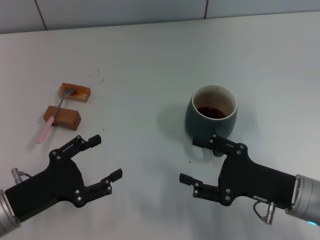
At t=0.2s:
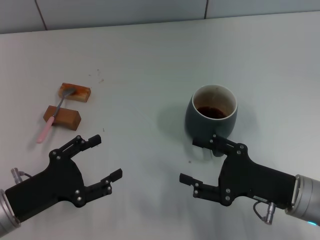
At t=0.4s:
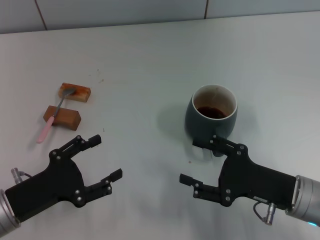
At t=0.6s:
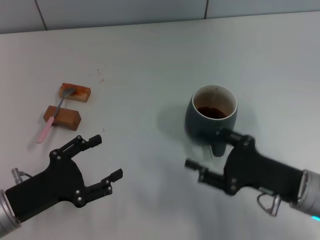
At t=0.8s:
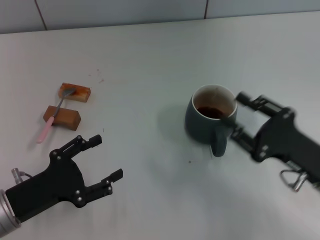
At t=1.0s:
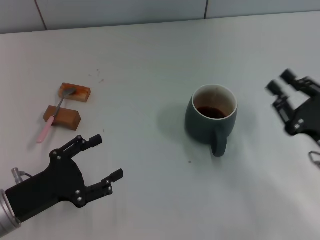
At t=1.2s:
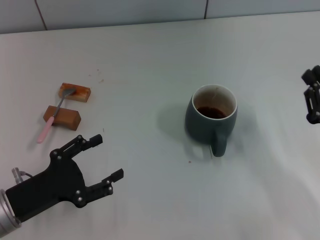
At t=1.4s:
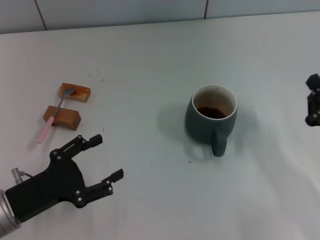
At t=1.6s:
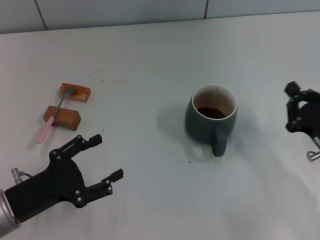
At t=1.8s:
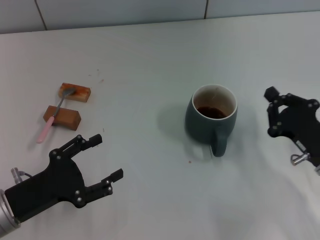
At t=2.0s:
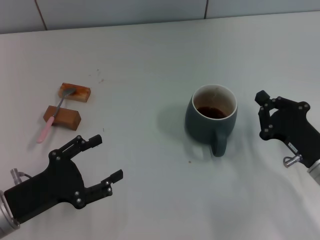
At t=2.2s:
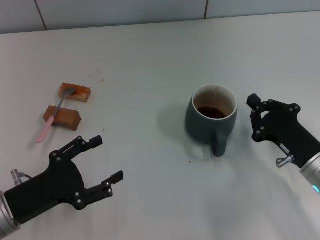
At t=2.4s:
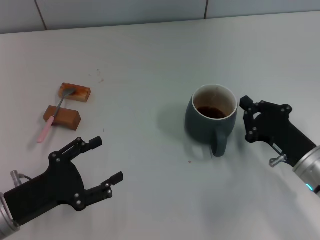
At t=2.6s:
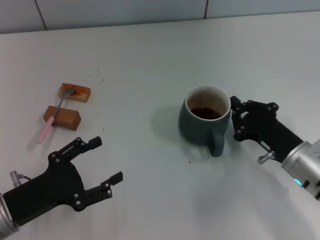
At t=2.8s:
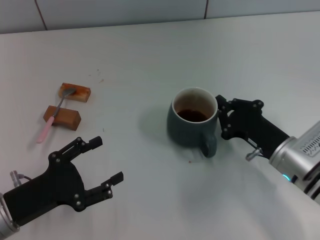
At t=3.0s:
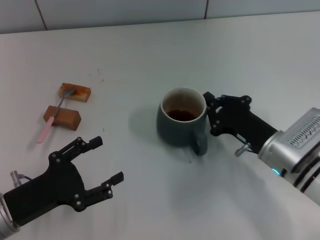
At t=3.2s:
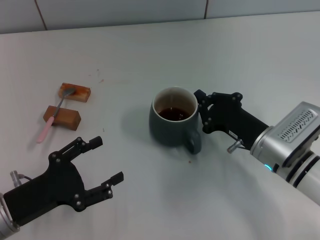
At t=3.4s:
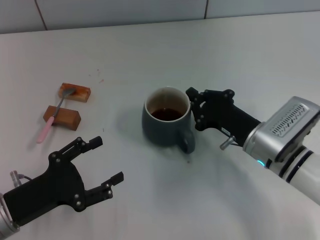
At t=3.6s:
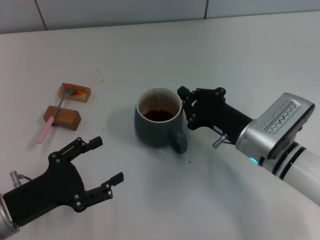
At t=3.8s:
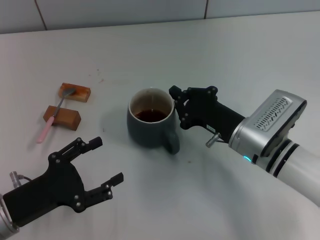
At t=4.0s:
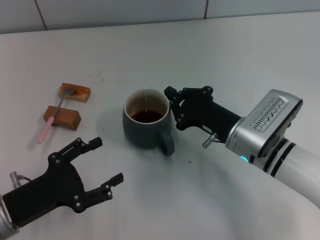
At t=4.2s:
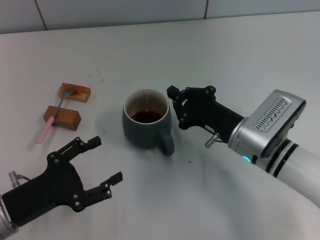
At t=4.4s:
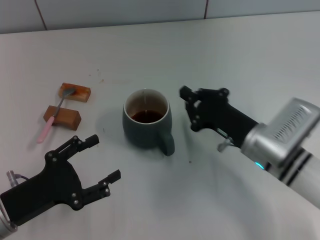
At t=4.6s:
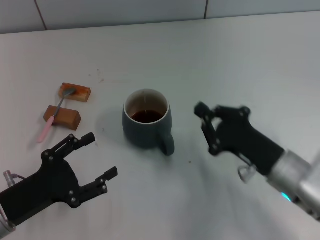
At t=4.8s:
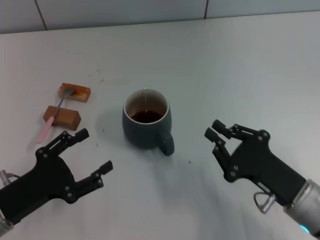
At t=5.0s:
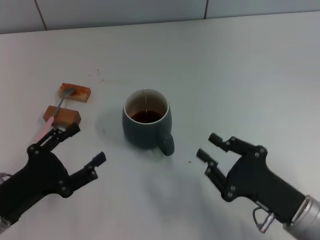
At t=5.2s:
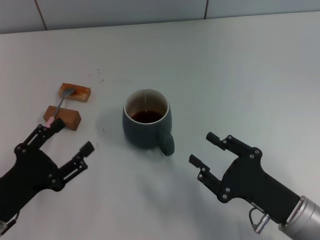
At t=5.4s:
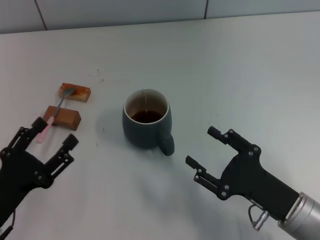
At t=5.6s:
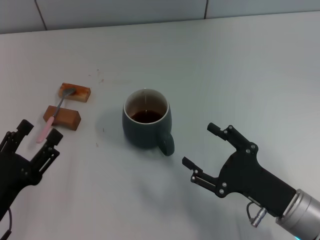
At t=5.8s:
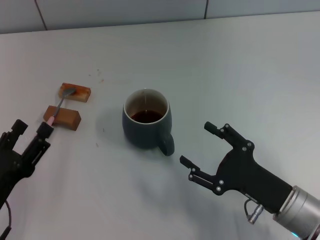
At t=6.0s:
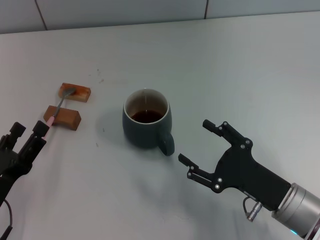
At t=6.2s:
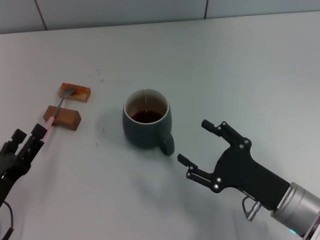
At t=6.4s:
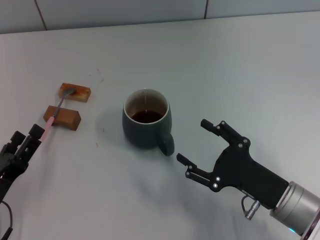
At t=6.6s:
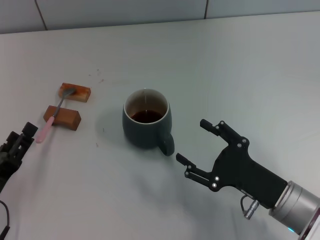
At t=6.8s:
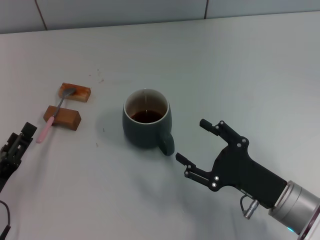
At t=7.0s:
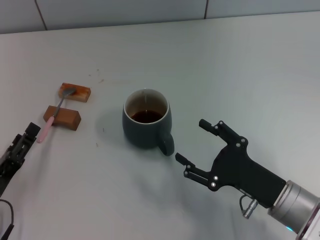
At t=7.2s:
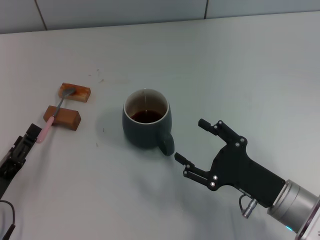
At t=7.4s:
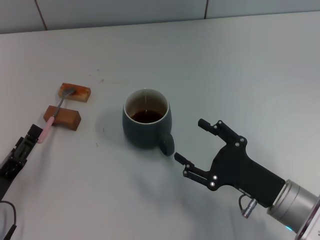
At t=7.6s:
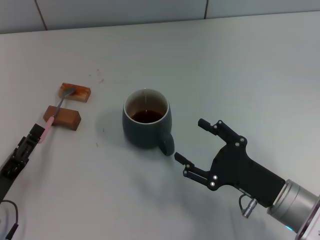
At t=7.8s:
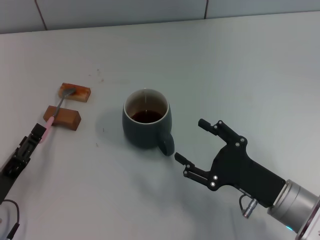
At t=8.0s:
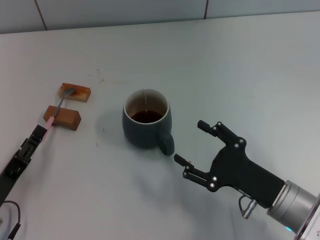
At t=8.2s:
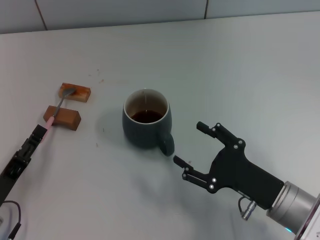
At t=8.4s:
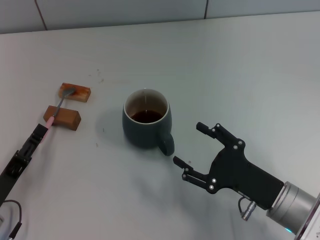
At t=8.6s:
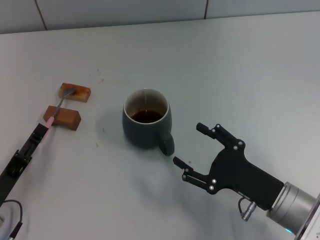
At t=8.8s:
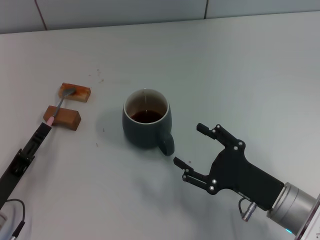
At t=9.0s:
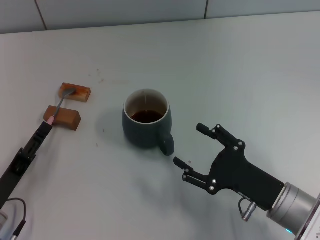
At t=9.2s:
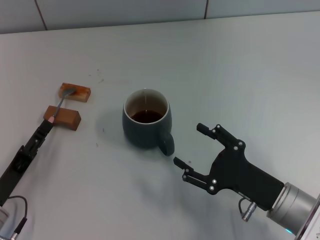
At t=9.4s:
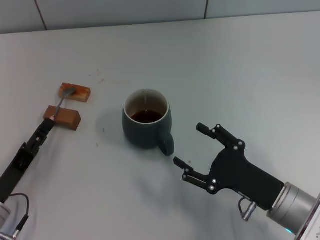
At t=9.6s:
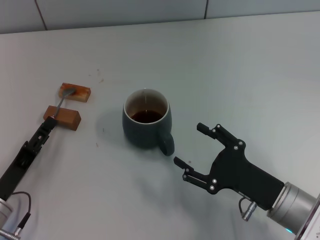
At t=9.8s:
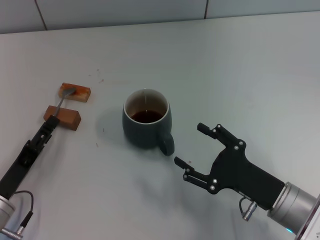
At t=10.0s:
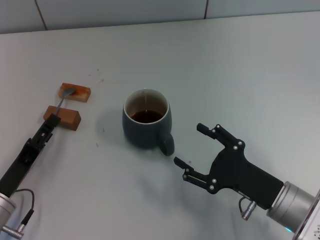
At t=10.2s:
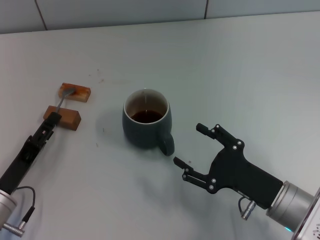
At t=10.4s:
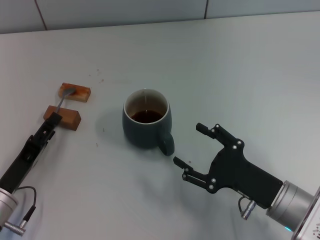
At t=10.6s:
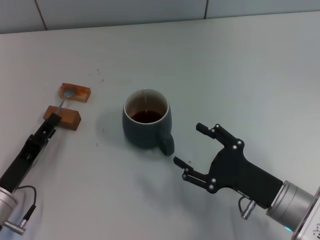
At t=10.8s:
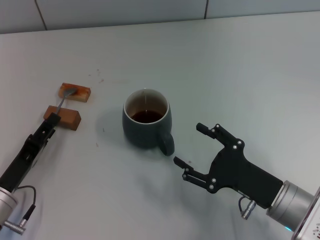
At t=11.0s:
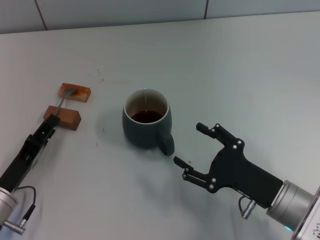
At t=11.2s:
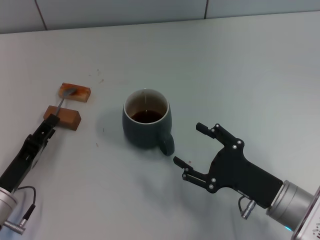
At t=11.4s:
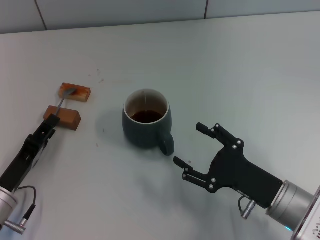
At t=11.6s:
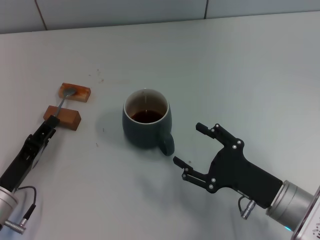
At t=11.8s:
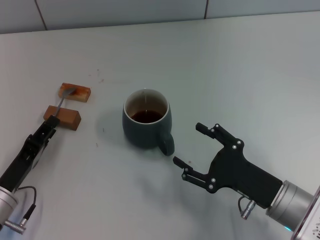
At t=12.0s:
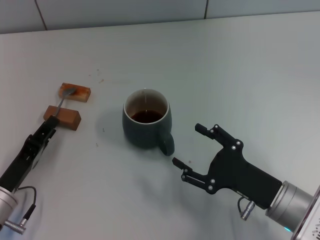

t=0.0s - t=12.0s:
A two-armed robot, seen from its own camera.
Task of the whole recording: Move the grey cup to the center, lift the pink spoon, stir it three times in the cup, and put the spoon into the cup.
Step, t=0.0s - t=4.2s: Move the cup with coffee to the center of view with the right gripper.
t=0.0s - t=1.6s: The right gripper goes roughly 5 cm to the right, and closes its fingers.
t=1.6s - t=3.0s: The right gripper heads to the left, covering roughly 10 cm.
t=3.0s - t=4.4s: The grippers stay close to where they were, moving slightly.
t=4.4s - t=6.0s: The right gripper heads backward, covering roughly 10 cm, and opens its fingers.
t=7.6s - t=10.4s: The grippers stay close to where they were, moving slightly.
t=10.4s - t=12.0s: The left gripper closes up.

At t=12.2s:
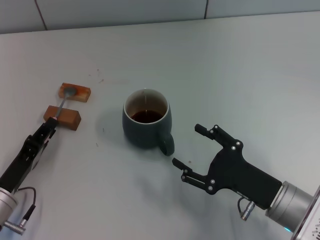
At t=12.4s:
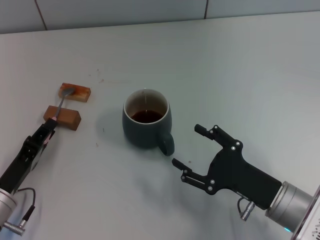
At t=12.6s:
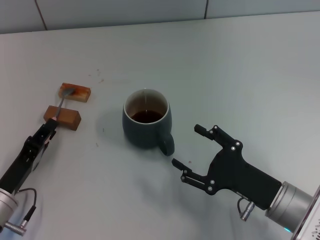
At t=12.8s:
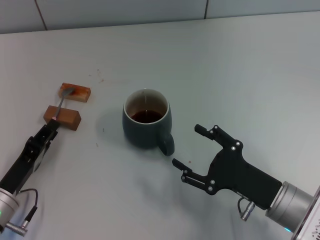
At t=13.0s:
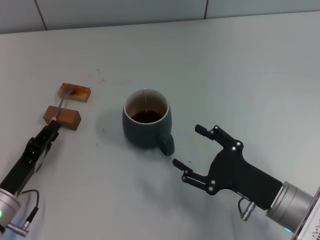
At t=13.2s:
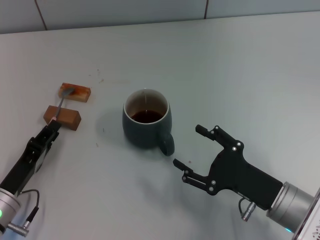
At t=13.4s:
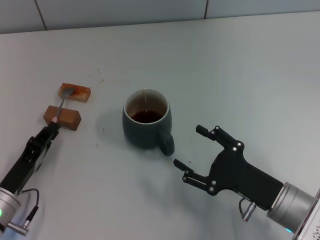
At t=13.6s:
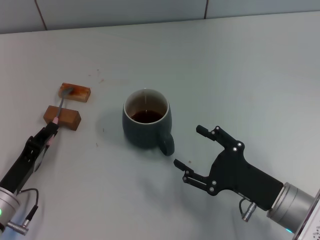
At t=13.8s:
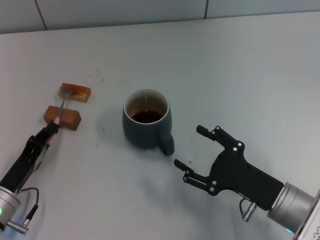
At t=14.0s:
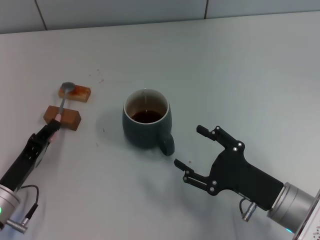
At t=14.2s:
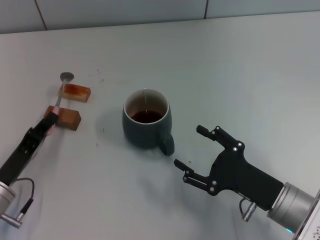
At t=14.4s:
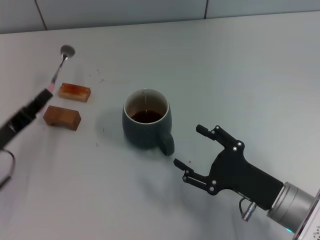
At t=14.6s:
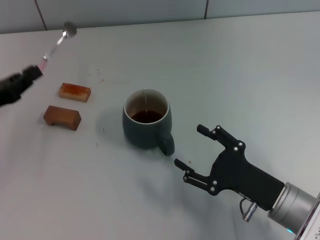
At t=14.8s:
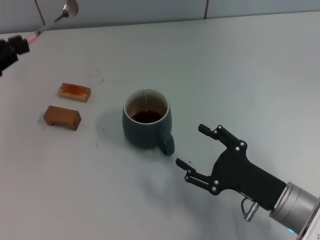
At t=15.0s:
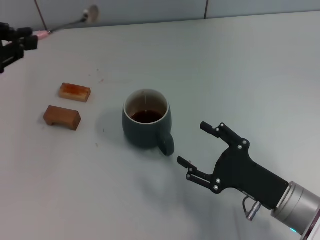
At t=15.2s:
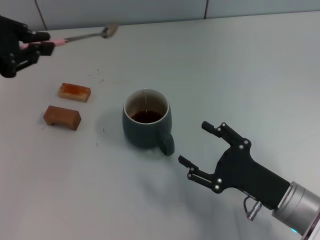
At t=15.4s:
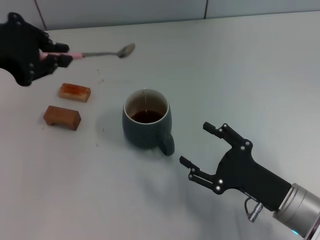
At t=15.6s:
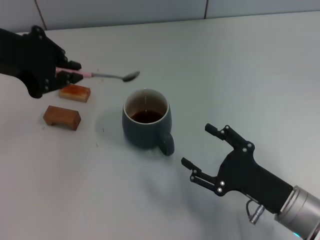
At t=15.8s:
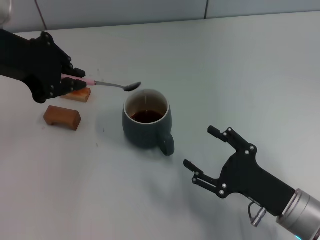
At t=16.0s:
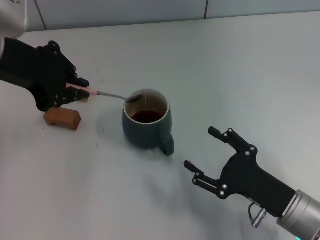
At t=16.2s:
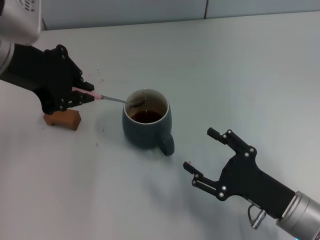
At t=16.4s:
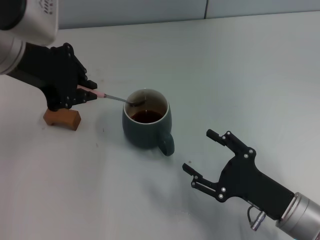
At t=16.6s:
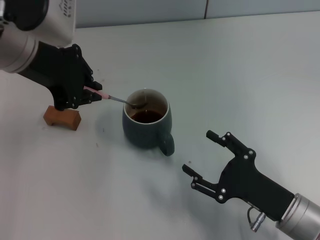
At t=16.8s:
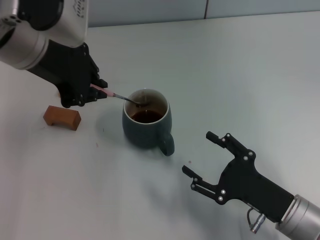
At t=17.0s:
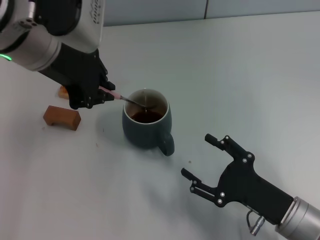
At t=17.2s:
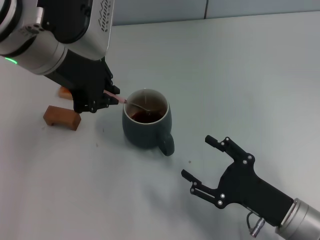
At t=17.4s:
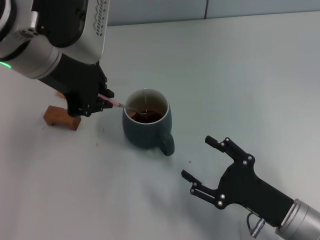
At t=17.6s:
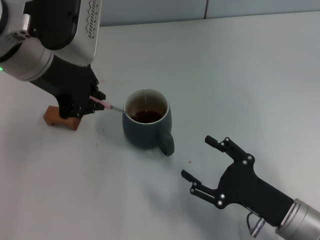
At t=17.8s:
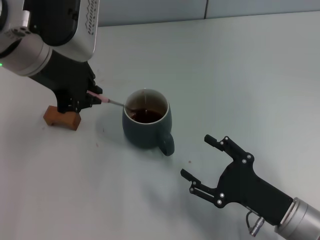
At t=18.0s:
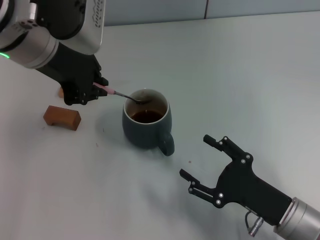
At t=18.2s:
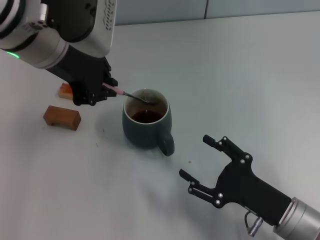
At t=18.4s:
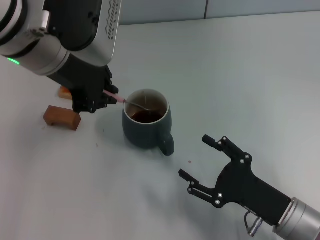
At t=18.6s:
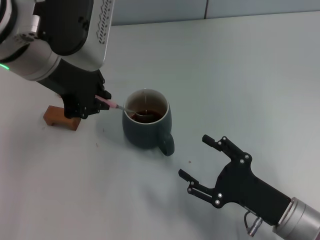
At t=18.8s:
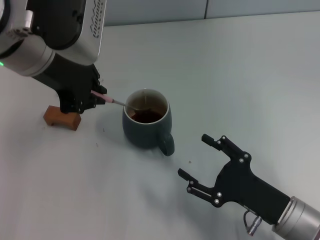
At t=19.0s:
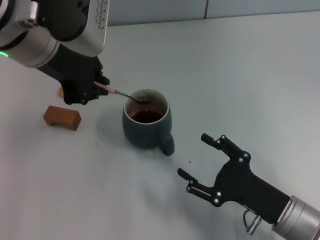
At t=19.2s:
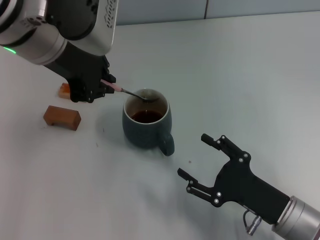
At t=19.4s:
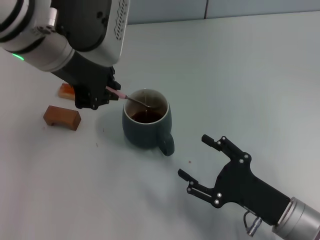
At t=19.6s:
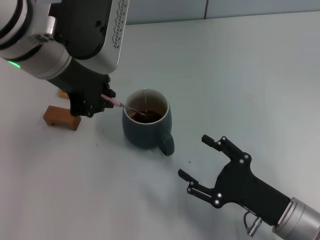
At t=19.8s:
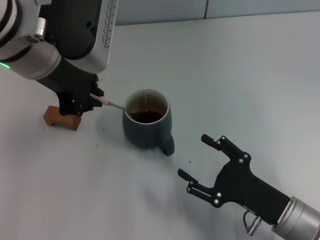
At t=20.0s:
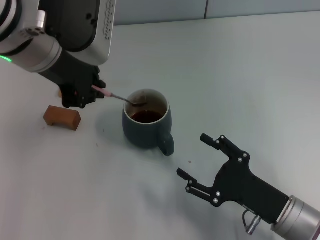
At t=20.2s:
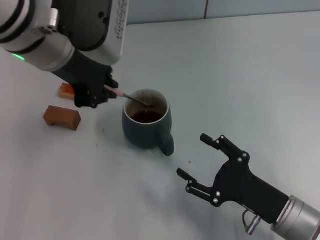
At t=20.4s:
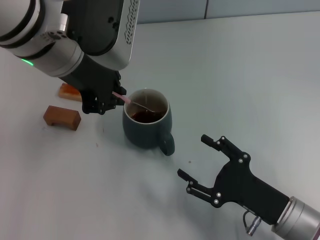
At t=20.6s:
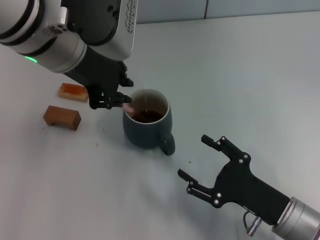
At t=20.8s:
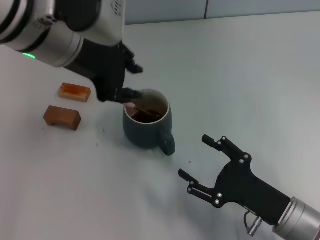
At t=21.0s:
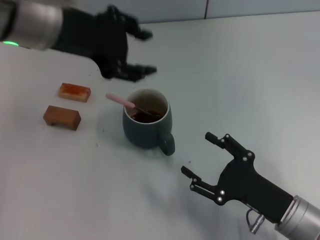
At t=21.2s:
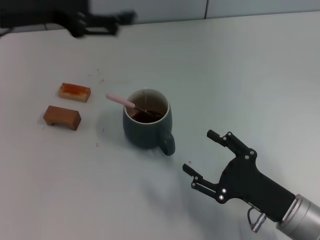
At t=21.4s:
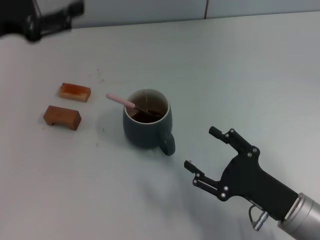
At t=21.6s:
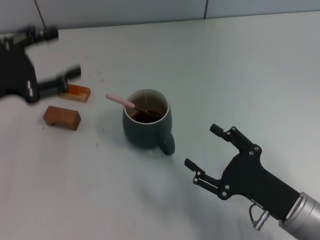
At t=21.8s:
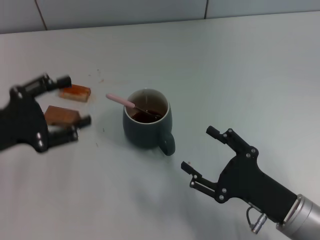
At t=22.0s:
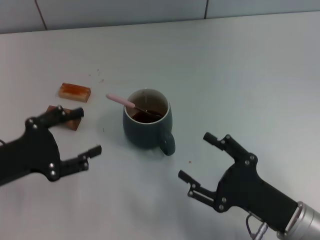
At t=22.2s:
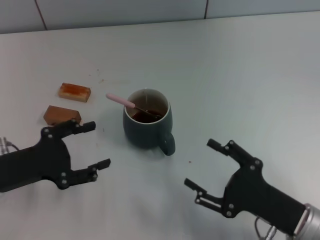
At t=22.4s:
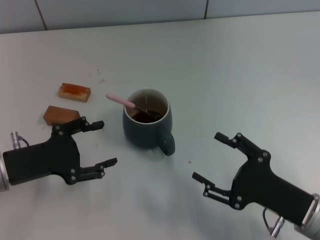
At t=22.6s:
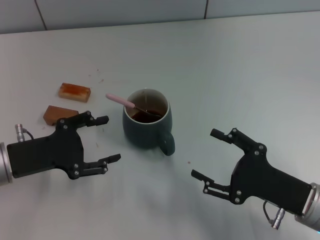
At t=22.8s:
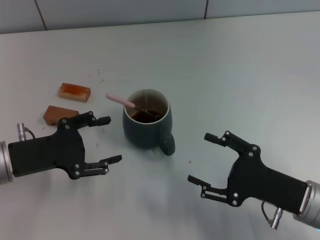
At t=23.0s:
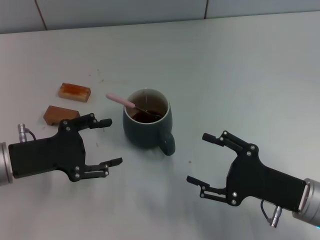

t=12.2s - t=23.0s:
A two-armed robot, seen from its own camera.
Task of the whole recording: Move the grey cup to the center, lift the pink spoon, stir it three times in the cup, and put the spoon into the cup.
Step, t=12.2s - t=14.2s: Pick up the spoon with the left gripper.
Step, t=14.4s - t=20.8s: Stir the coffee in the cup with the left gripper.
t=12.2s - t=13.8s: The two grippers keep their place.
t=13.8s - t=15.2s: The left gripper shifts roughly 30 cm upward and forward.
t=15.2s - t=16.8s: The left gripper heads to the right, covering approximately 15 cm.
t=16.8s - t=20.0s: There are only small adjustments of the grippers.
t=20.0s - t=21.4s: The left gripper moves to the left and downward, approximately 15 cm, and opens up.
t=21.4s - t=23.0s: The left gripper heads downward and backward, covering some 15 cm.
